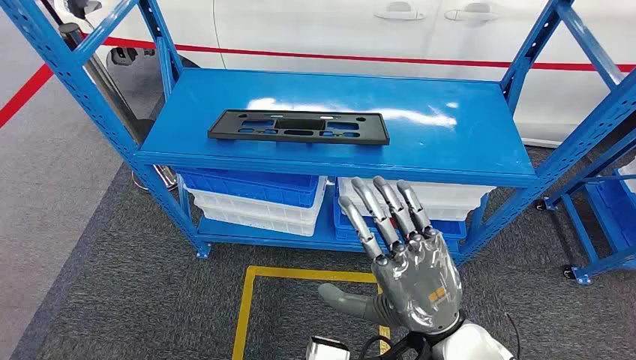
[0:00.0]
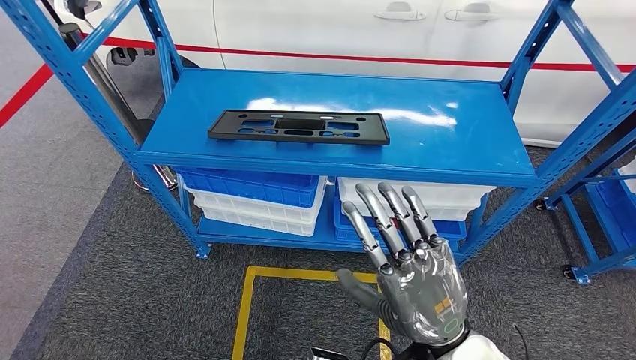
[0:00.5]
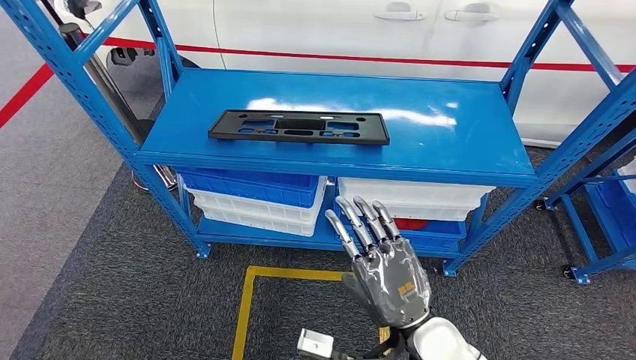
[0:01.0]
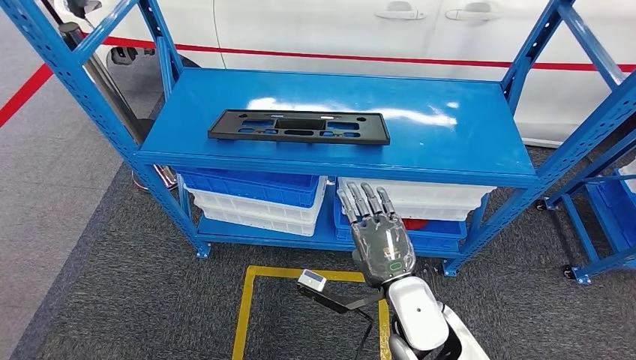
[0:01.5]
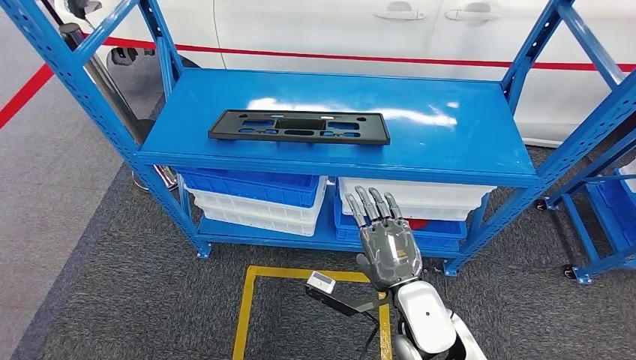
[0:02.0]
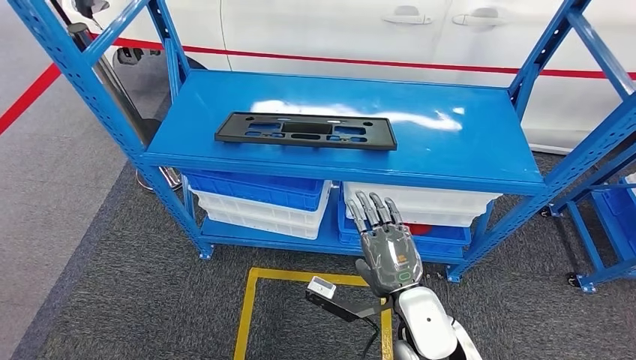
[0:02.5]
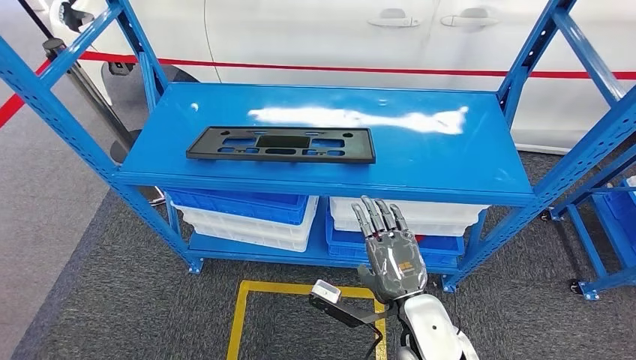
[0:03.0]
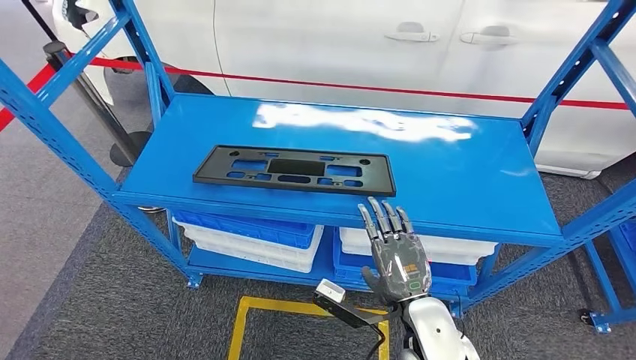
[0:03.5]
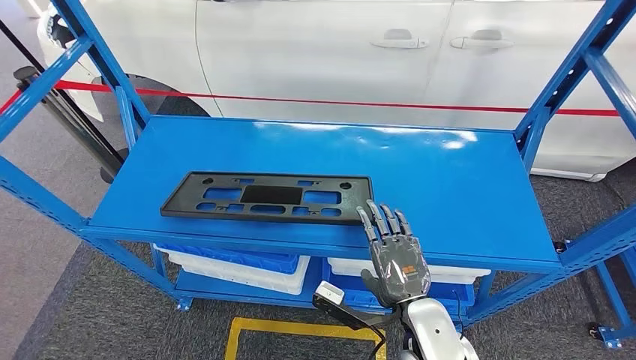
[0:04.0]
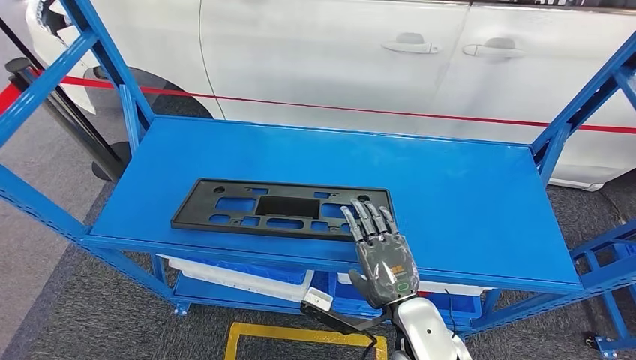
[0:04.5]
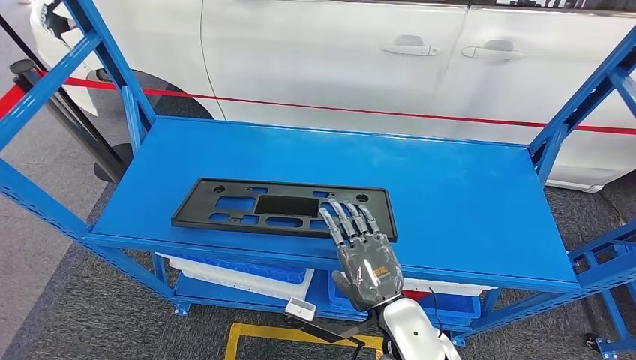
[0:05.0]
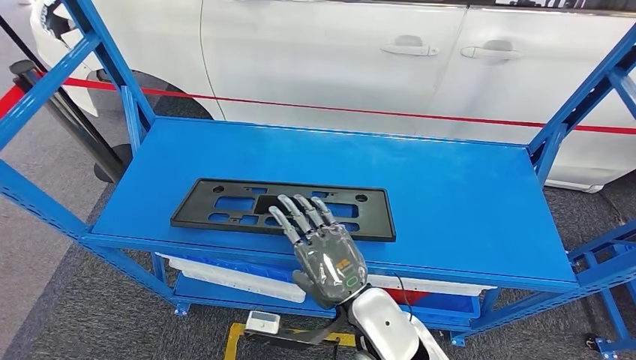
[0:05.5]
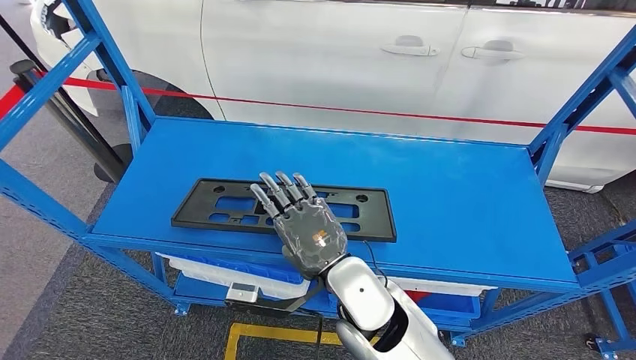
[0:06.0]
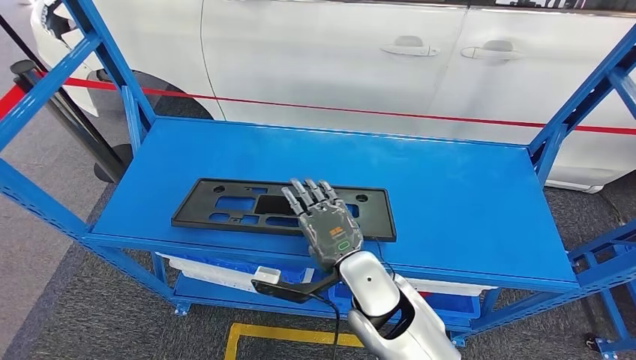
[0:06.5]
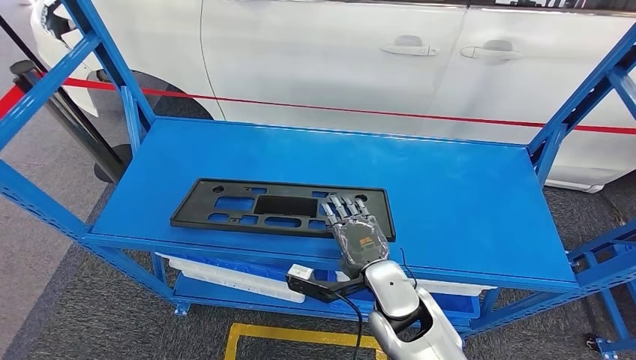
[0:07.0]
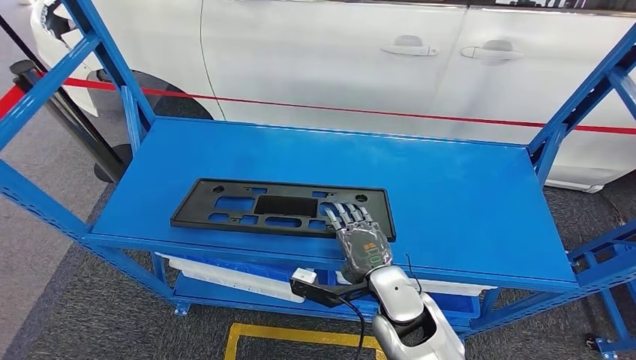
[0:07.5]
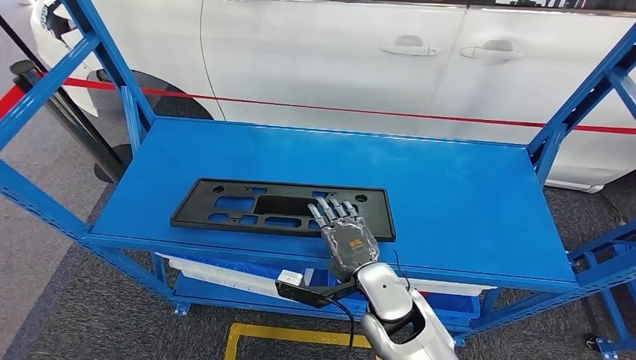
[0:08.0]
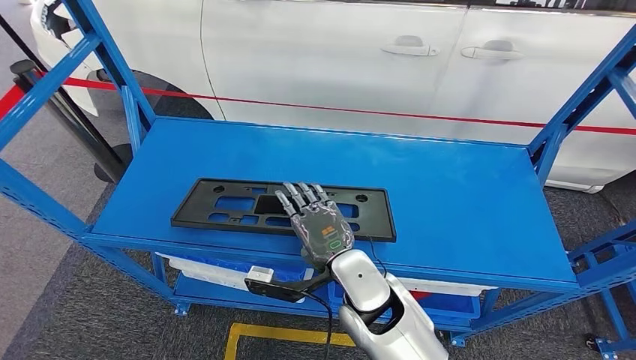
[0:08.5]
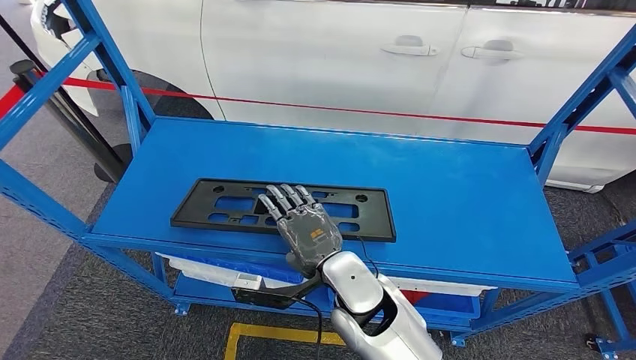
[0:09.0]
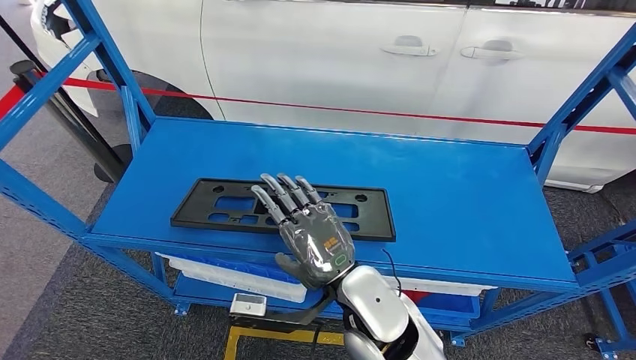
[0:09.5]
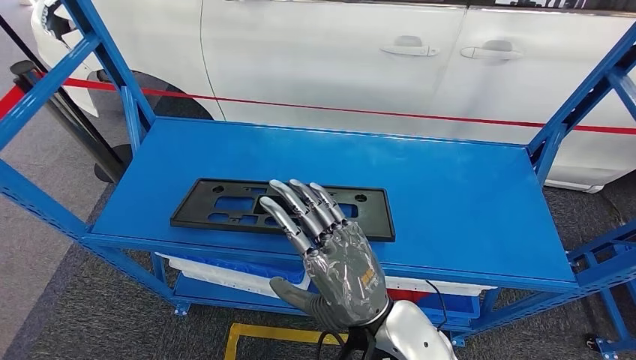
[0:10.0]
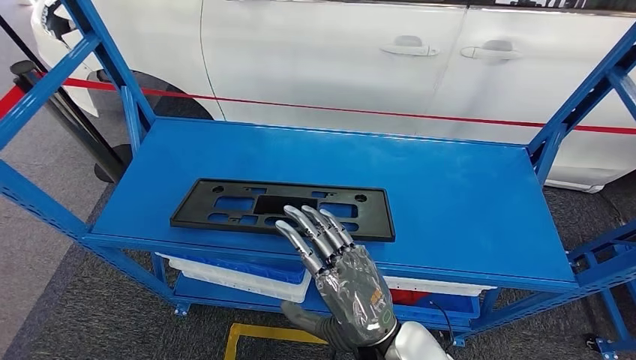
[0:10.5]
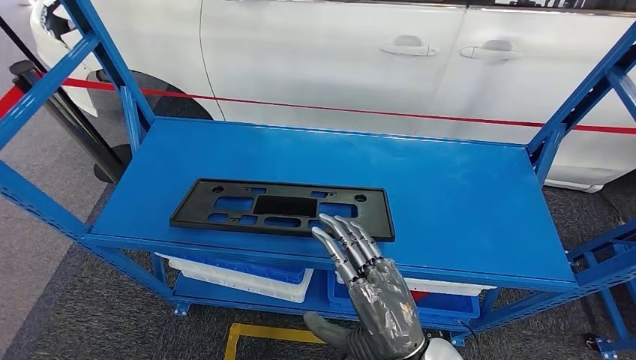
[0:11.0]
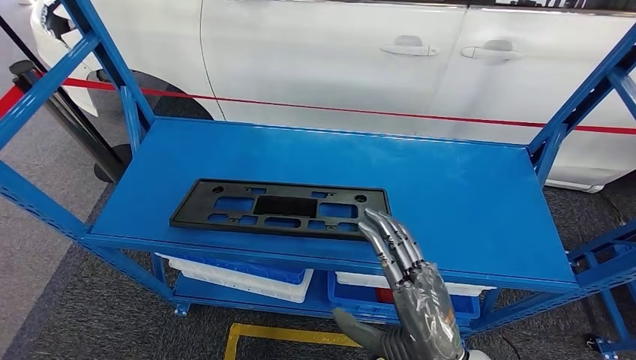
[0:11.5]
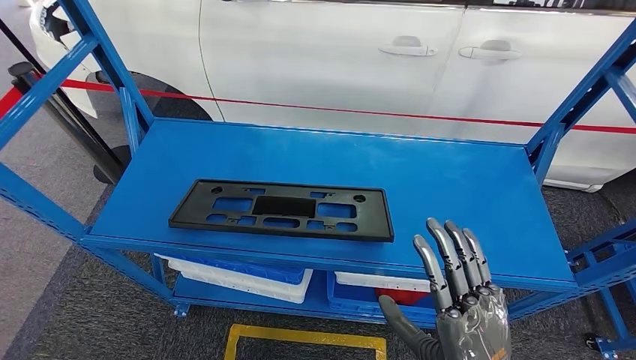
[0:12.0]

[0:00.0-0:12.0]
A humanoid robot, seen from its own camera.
0:06.0 to 0:08.0: The right hand travels downward and to the right by some 10 cm.
0:08.0 to 0:10.0: The right hand is displaced upward and backward by some 15 cm.
0:10.0 to 0:12.0: The right hand is displaced to the right and backward by about 10 cm.

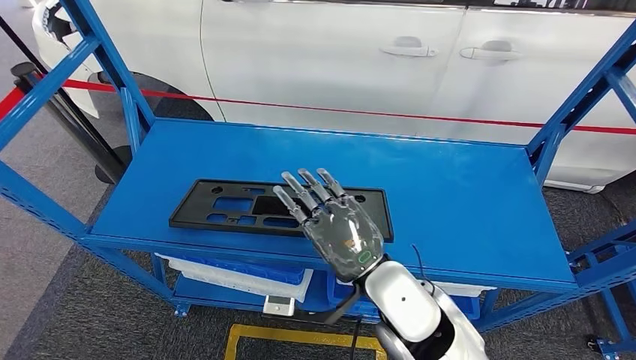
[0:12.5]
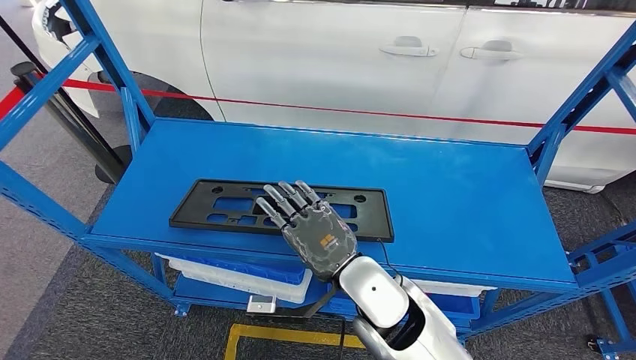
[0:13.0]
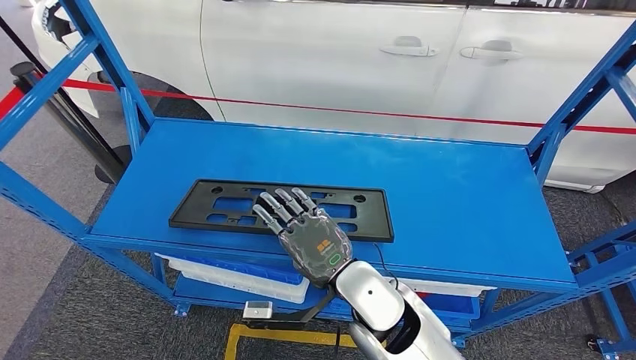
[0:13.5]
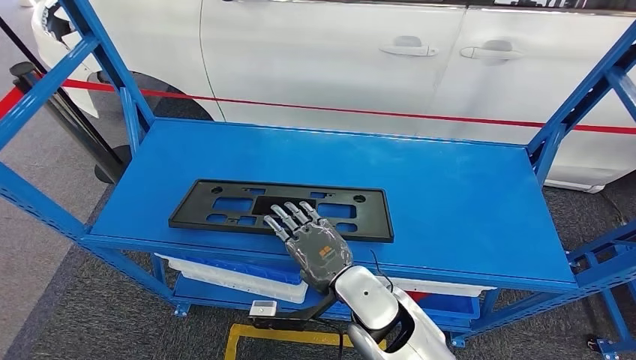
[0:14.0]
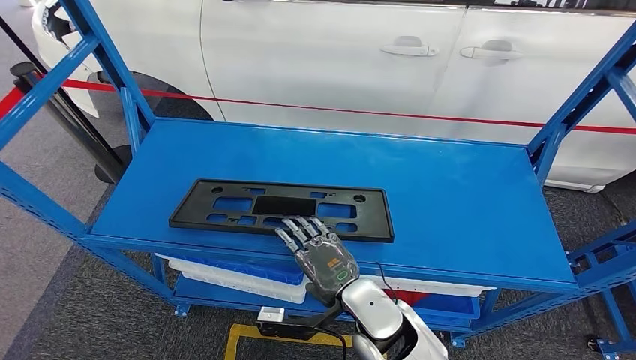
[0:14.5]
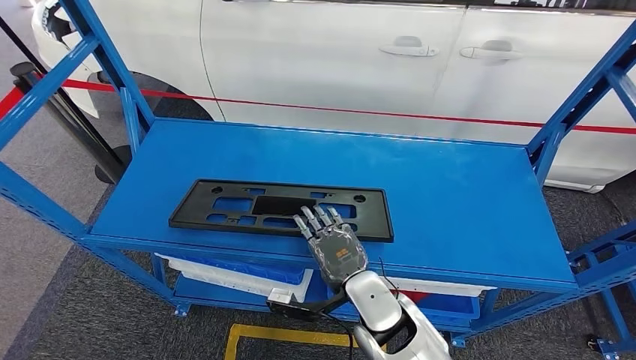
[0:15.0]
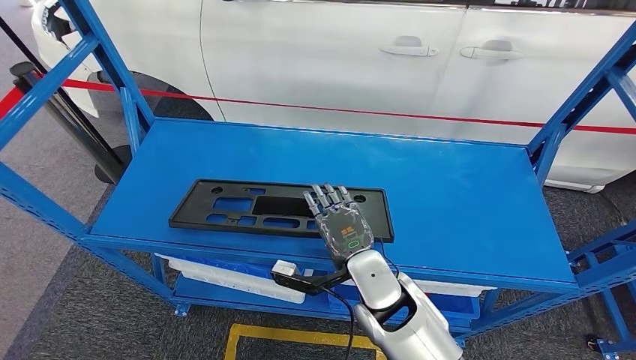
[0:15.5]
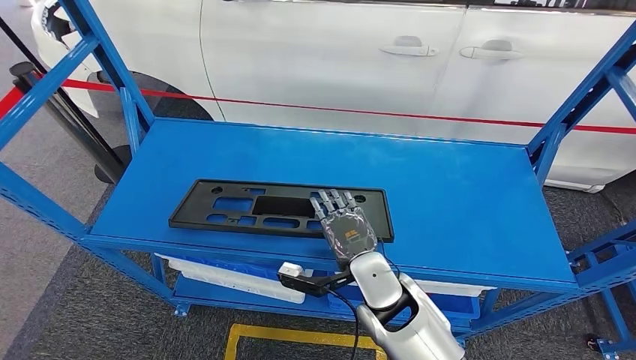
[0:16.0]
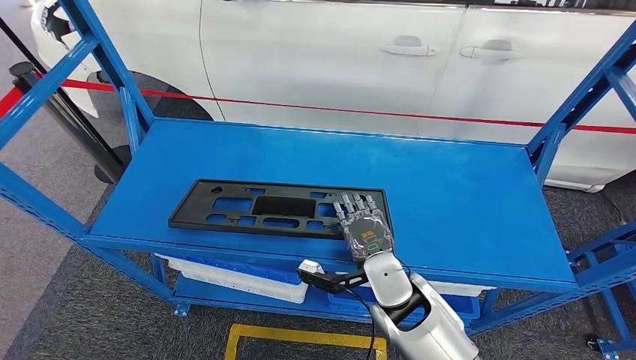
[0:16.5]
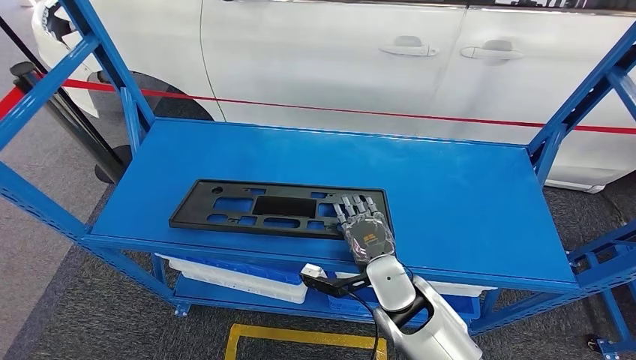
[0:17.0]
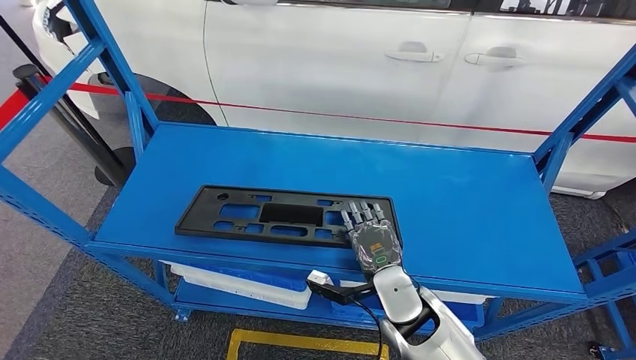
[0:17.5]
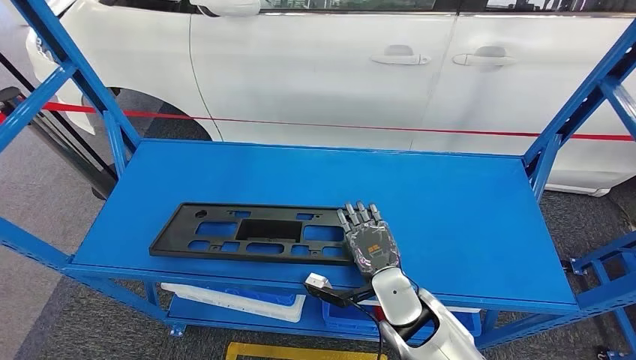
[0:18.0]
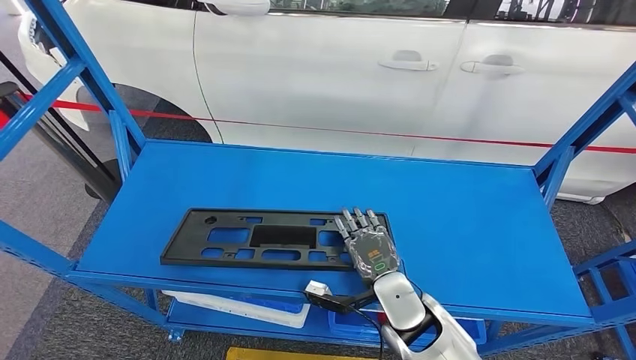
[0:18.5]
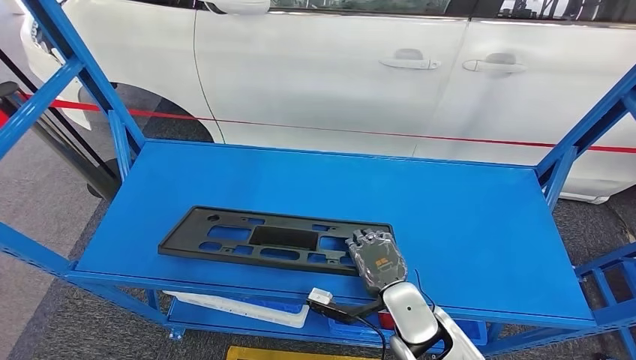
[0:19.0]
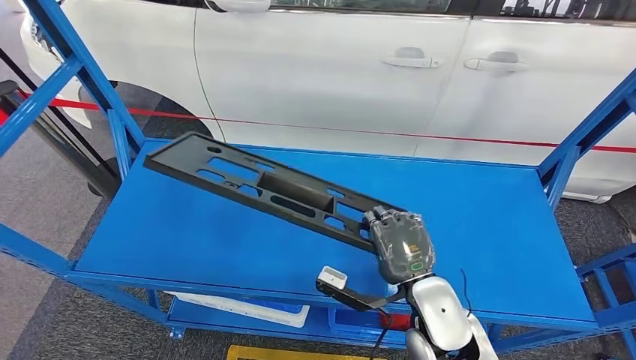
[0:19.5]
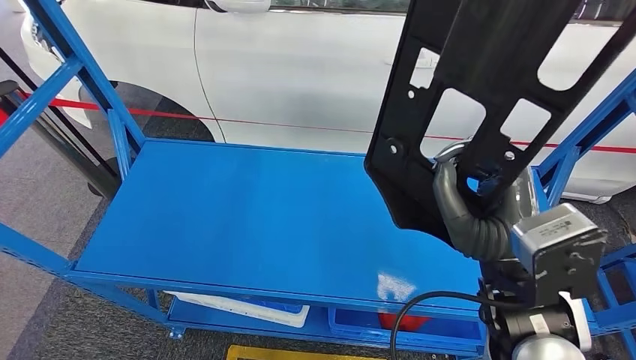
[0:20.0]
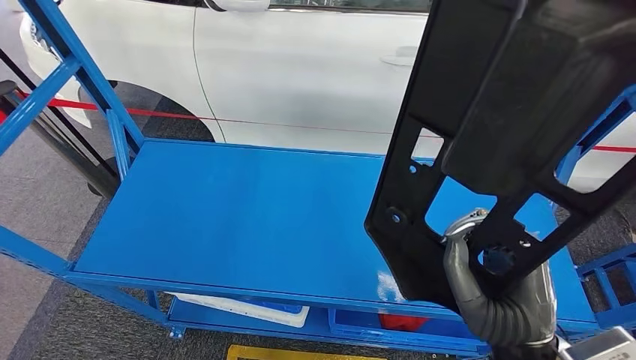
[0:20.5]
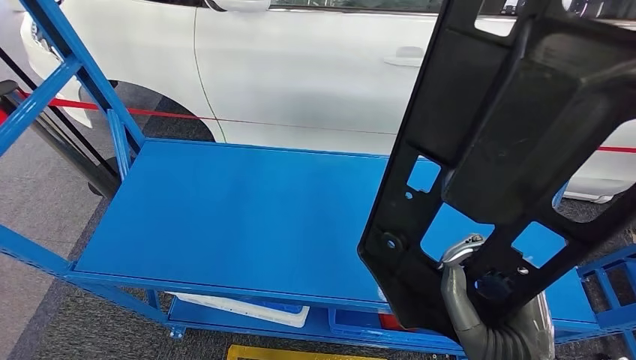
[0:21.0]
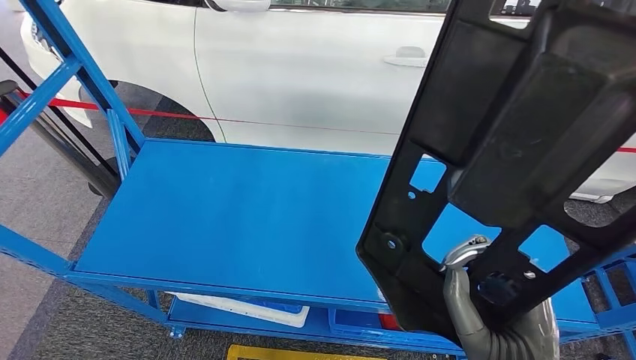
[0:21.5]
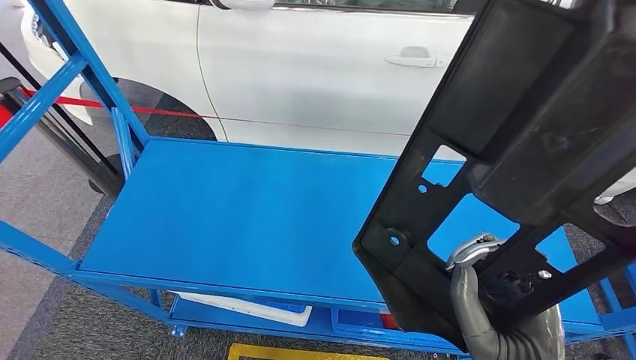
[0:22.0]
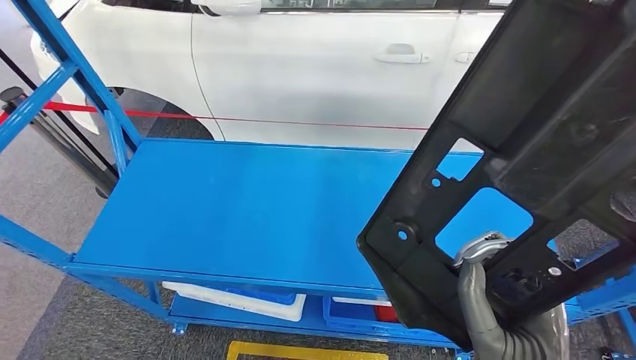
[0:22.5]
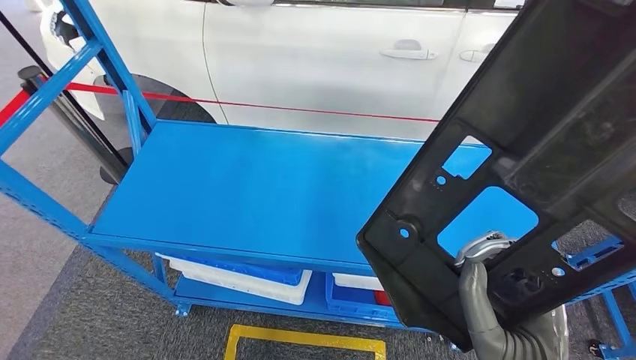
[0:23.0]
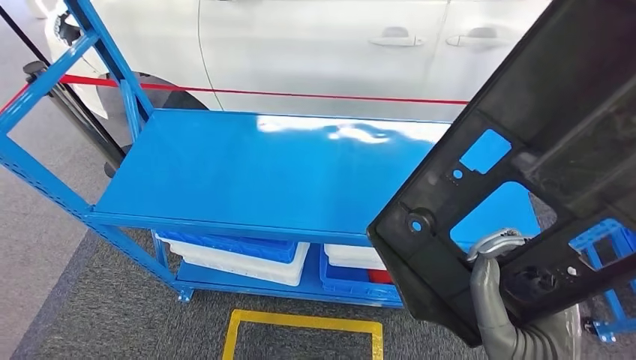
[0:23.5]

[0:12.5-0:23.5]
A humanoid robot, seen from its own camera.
0:12.5 to 0:14.5: The right hand is displaced downward by roughly 10 cm.
